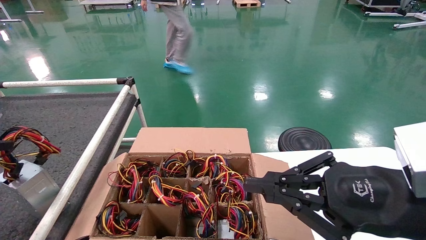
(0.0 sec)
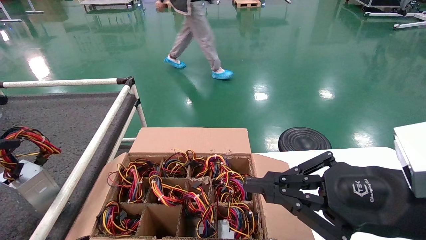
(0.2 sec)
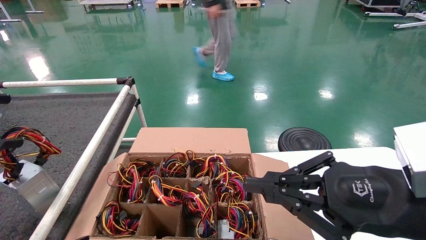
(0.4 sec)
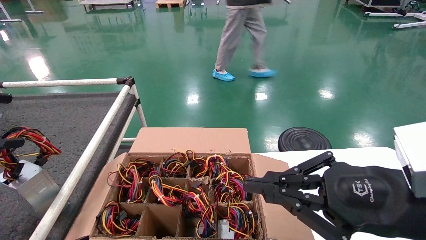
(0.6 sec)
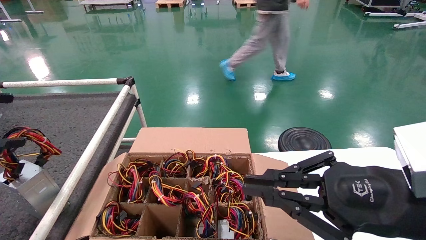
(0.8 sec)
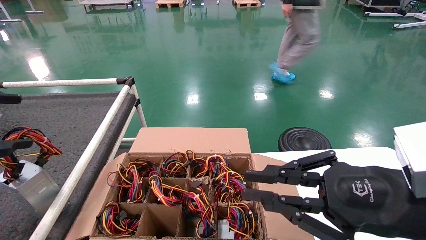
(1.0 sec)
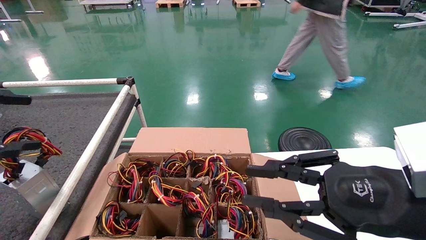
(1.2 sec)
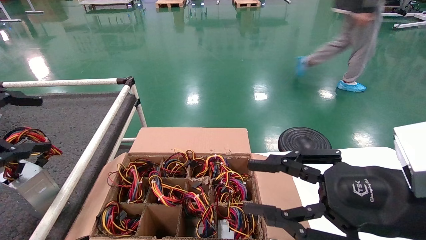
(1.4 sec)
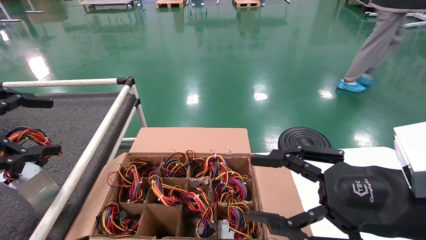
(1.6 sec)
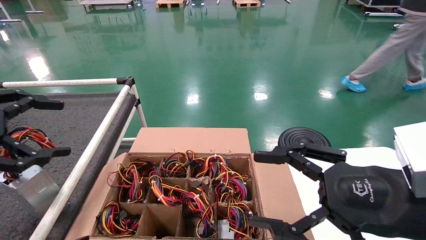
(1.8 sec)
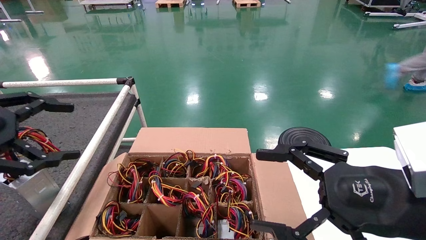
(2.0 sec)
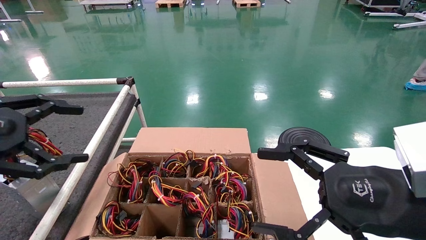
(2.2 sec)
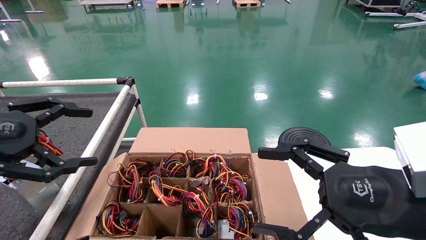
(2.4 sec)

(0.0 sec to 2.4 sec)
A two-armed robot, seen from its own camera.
0.0 sec - 1.2 sec: The grippers move only a little.
1.2 sec - 2.4 sec: The right gripper opens. The left gripper travels to the right by approximately 5 cm.
